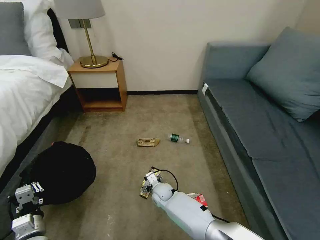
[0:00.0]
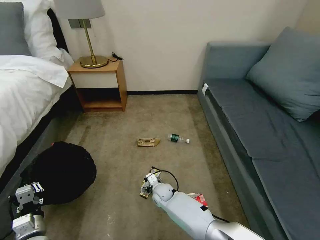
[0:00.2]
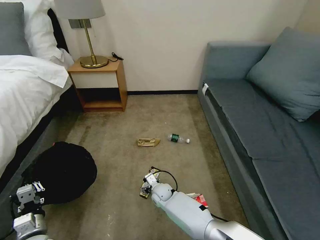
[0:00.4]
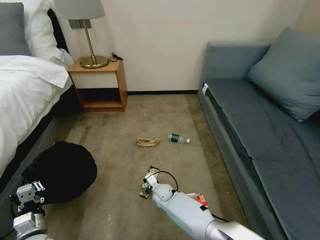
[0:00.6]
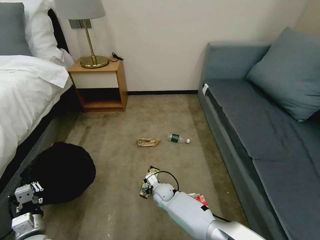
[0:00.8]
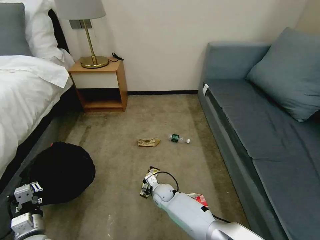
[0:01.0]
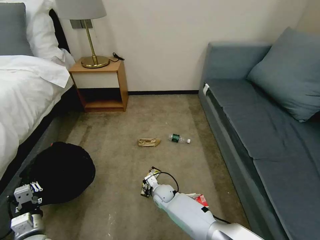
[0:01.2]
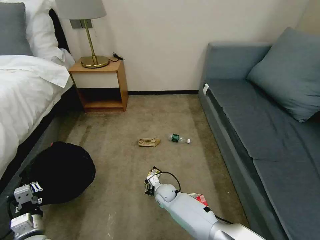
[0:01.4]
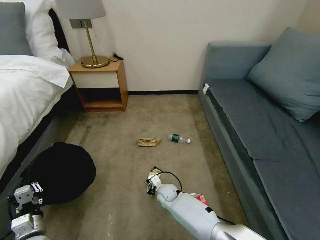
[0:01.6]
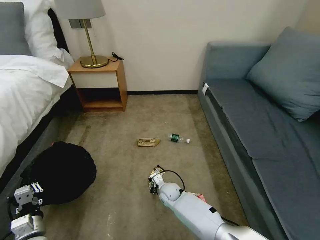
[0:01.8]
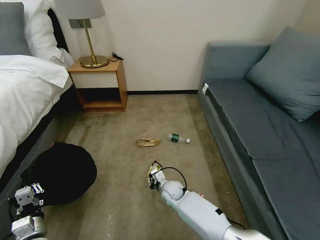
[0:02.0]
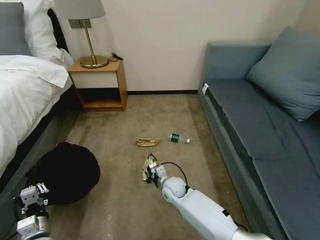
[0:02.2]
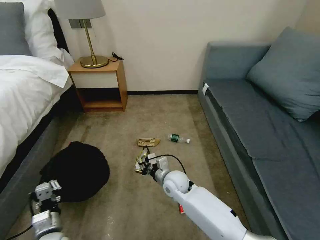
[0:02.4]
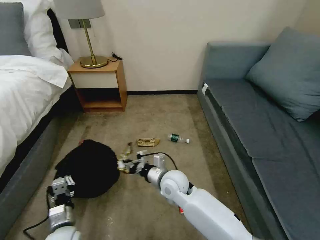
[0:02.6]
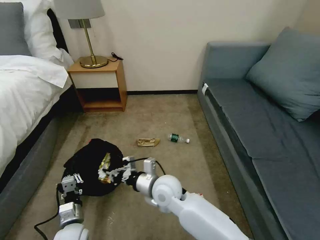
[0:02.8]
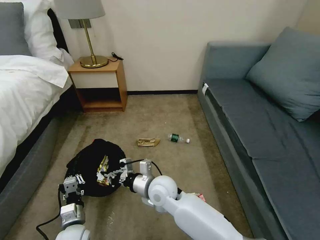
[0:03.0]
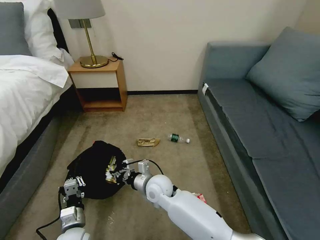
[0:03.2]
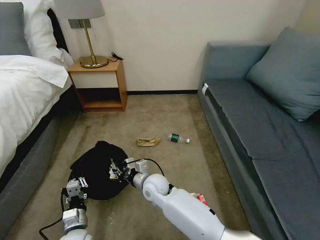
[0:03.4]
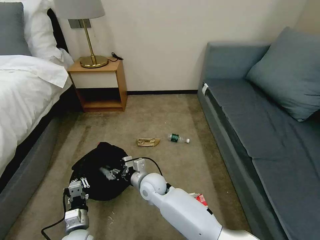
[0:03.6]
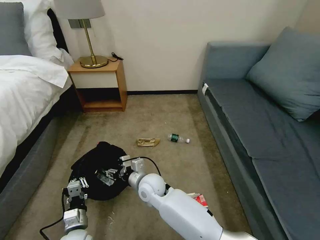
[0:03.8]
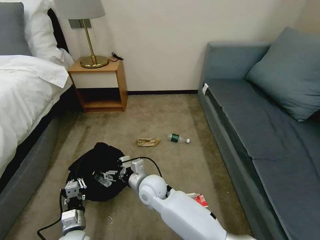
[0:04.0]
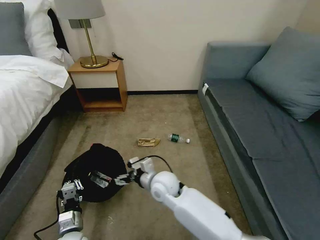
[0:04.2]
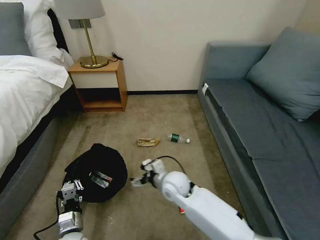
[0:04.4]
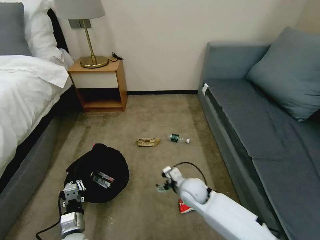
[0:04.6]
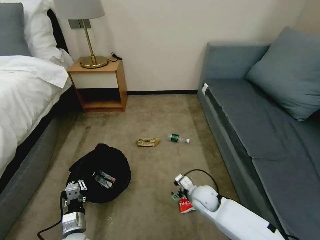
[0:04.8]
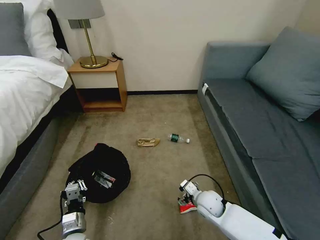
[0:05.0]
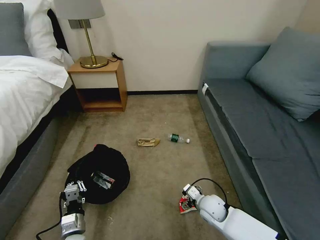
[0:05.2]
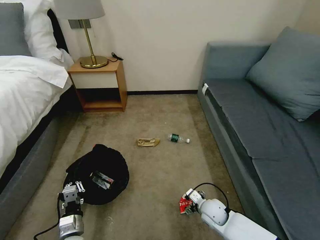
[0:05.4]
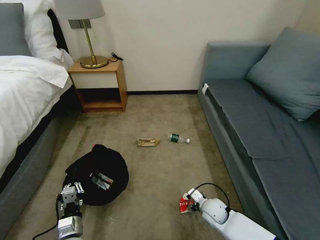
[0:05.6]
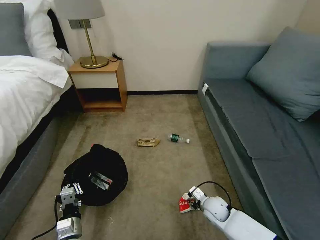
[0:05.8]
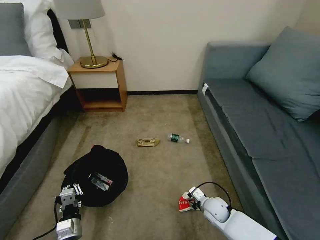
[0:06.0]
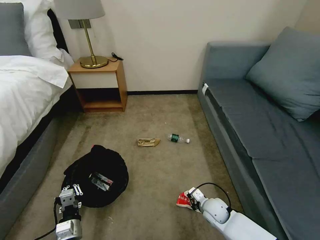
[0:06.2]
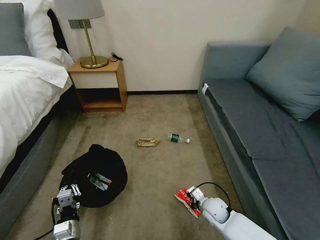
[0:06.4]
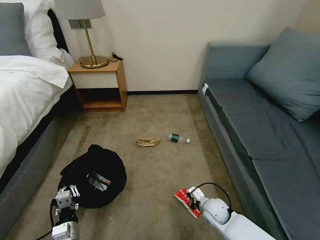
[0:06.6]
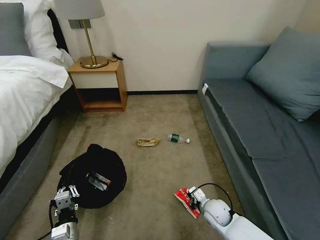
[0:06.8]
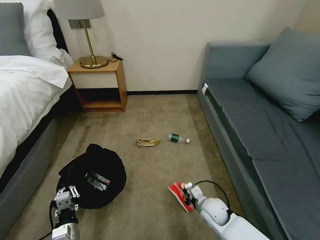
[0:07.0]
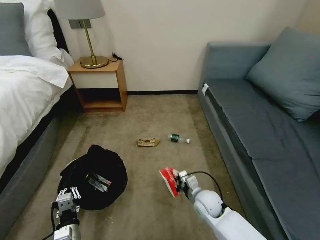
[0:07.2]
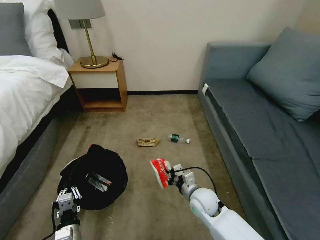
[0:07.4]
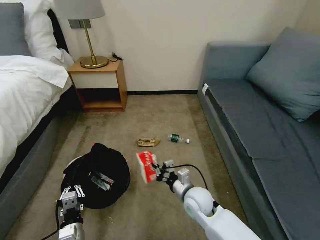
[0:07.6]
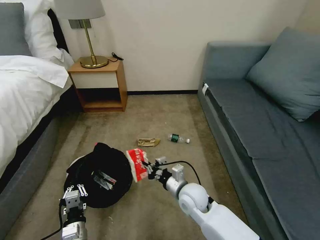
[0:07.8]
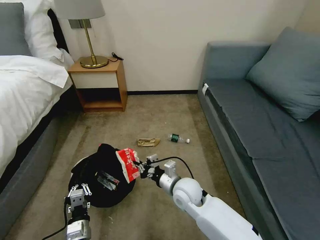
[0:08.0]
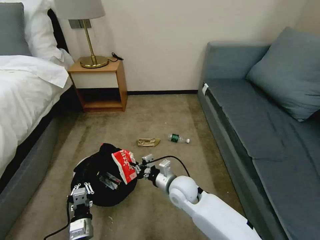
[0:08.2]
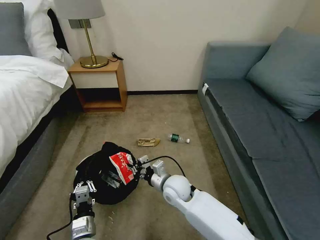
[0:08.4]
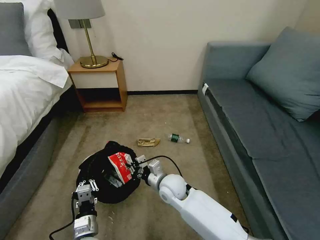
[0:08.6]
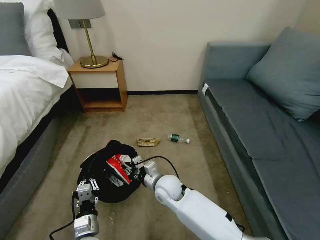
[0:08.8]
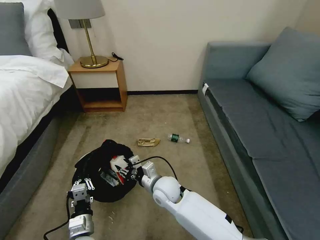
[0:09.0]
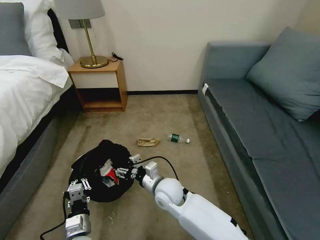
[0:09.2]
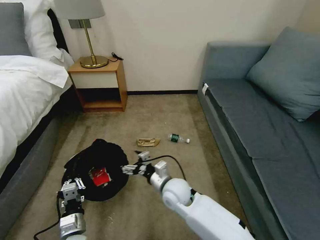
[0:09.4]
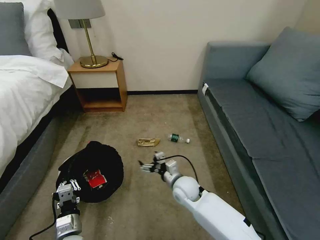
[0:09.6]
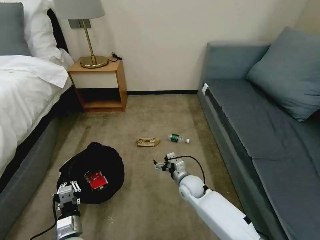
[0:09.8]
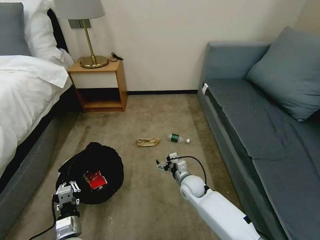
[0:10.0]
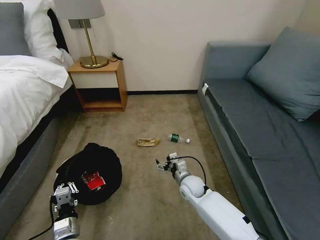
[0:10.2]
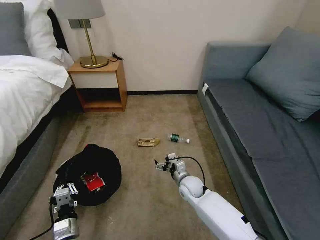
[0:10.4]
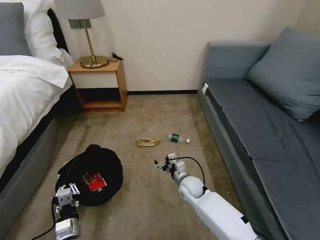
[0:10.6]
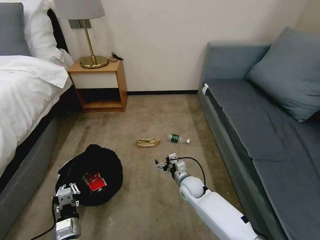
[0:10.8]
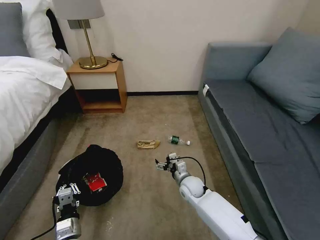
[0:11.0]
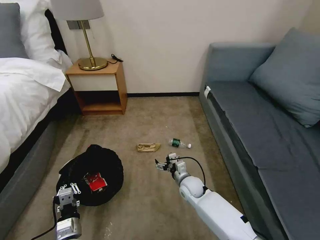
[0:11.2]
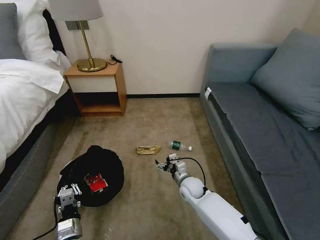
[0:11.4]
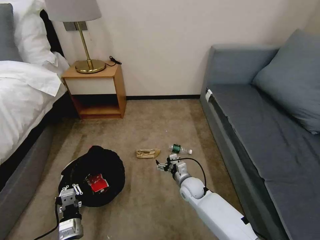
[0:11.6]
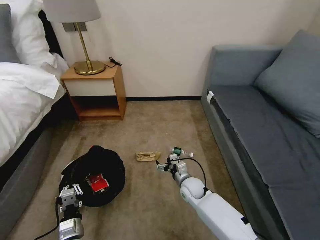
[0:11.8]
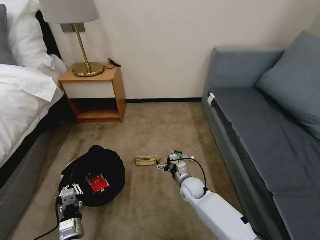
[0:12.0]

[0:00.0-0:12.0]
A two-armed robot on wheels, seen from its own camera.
Task of the whole recording: Pick up the trash bin, then pick up the garbage on the floor and place it into the trash bin.
0:00.0 to 0:01.6: The right gripper closes its fingers.
0:01.6 to 0:03.0: The left gripper moves to the right, approximately 10 cm, while the right gripper travels upward by some 20 cm.
0:03.0 to 0:04.4: The right gripper changes place by approximately 5 cm, and opens.
0:04.4 to 0:06.0: The right gripper travels to the right and downward by roughly 25 cm, and closes its fingers.
0:06.0 to 0:07.6: The right gripper heads upward and to the left, covering about 15 cm, and closes up.
0:07.6 to 0:09.0: The right gripper heads to the left, covering approximately 10 cm, and opens its fingers.
0:09.0 to 0:10.4: The right gripper travels to the right and downward by approximately 15 cm, and opens.

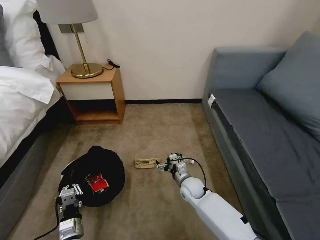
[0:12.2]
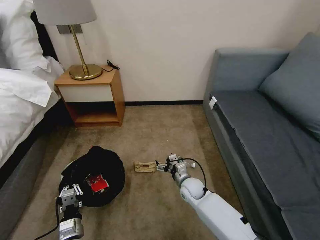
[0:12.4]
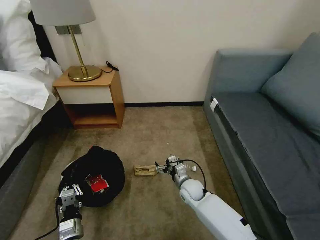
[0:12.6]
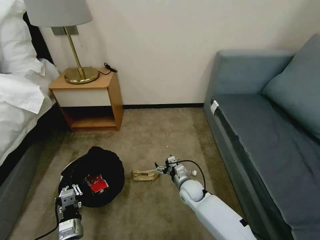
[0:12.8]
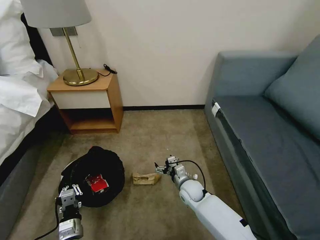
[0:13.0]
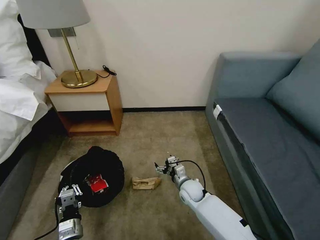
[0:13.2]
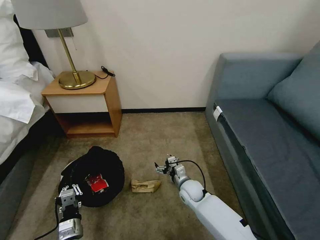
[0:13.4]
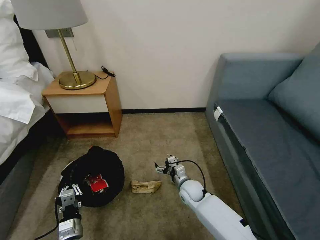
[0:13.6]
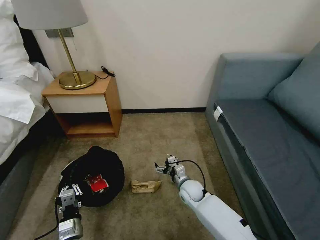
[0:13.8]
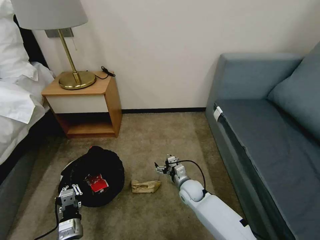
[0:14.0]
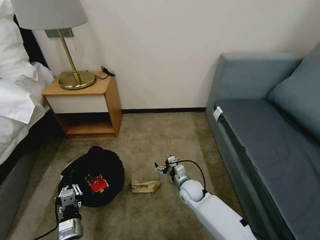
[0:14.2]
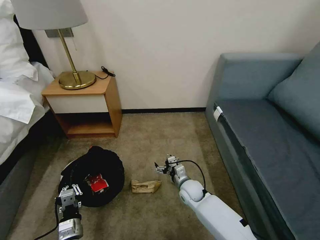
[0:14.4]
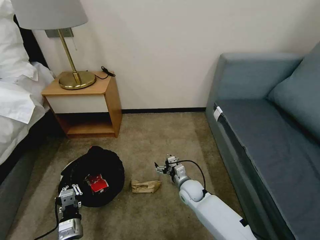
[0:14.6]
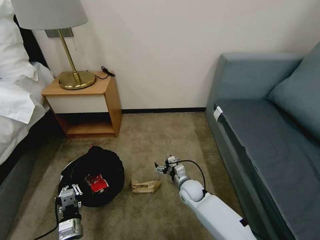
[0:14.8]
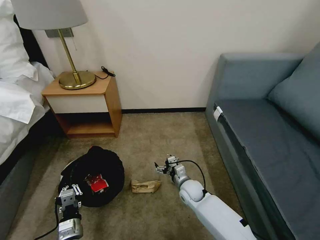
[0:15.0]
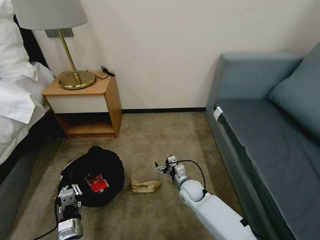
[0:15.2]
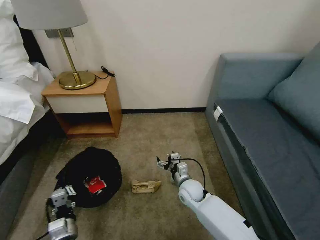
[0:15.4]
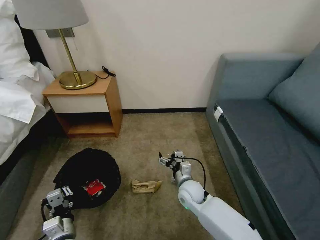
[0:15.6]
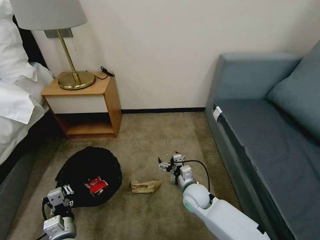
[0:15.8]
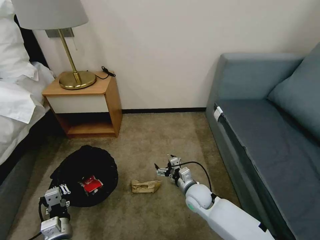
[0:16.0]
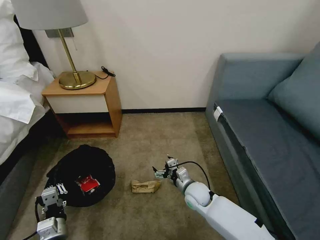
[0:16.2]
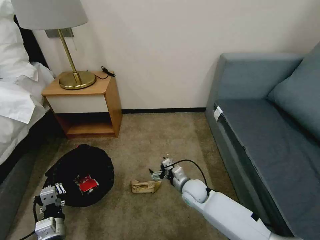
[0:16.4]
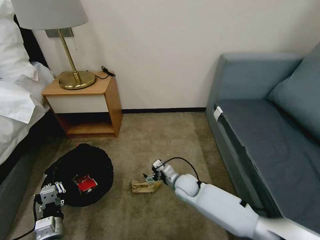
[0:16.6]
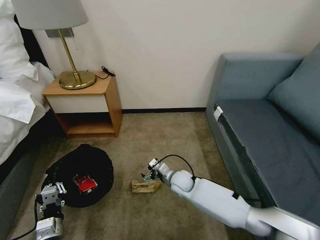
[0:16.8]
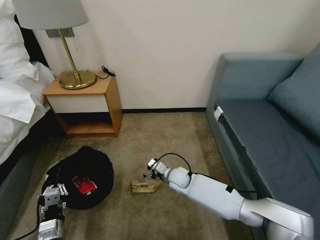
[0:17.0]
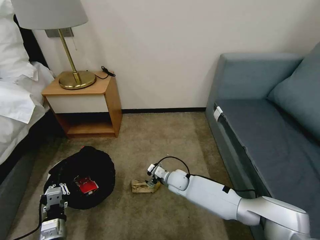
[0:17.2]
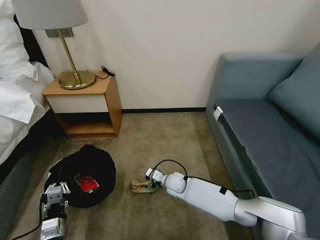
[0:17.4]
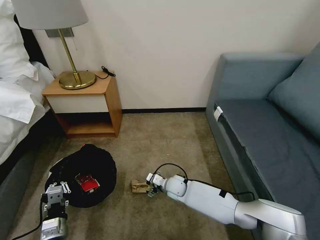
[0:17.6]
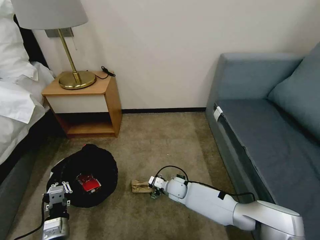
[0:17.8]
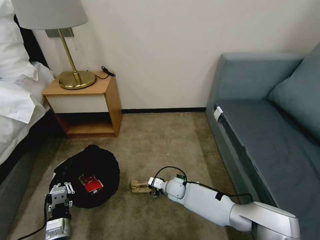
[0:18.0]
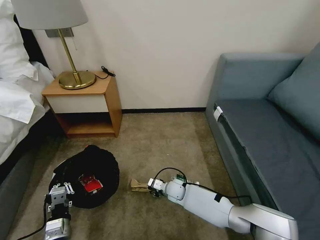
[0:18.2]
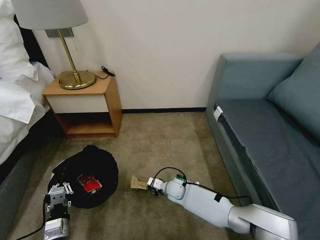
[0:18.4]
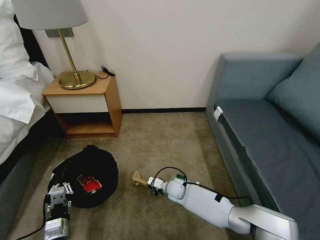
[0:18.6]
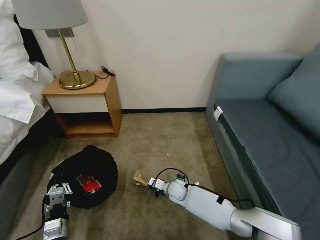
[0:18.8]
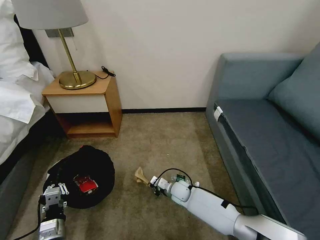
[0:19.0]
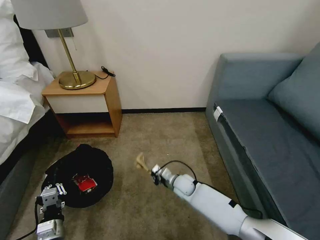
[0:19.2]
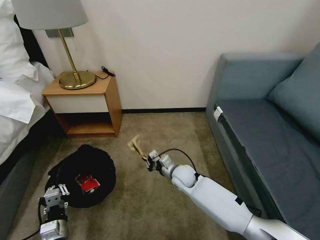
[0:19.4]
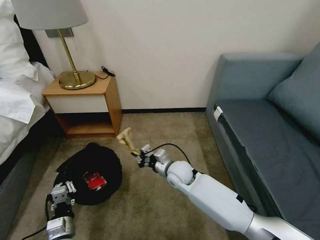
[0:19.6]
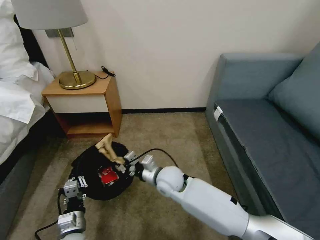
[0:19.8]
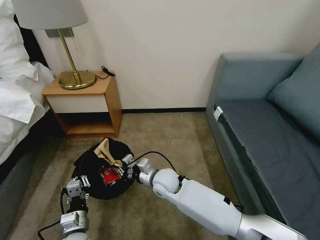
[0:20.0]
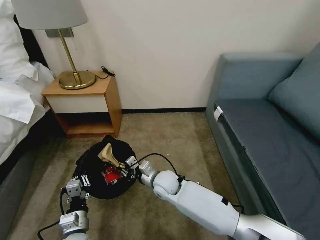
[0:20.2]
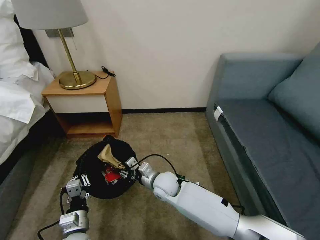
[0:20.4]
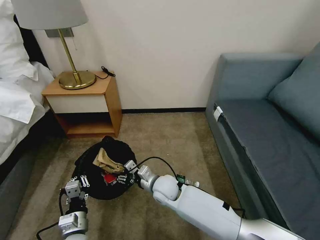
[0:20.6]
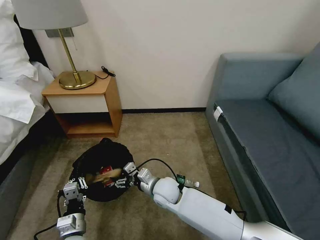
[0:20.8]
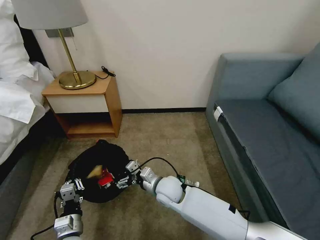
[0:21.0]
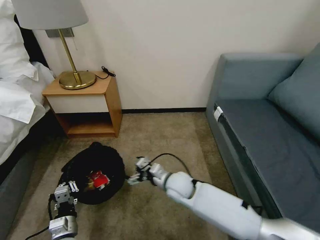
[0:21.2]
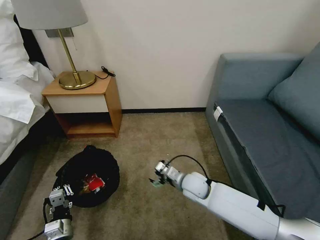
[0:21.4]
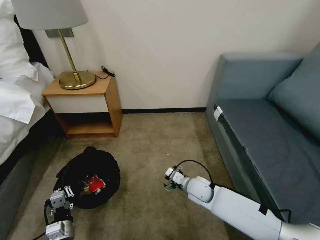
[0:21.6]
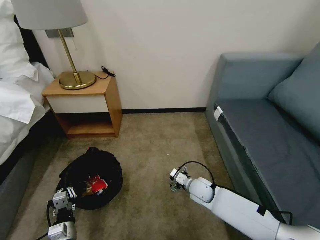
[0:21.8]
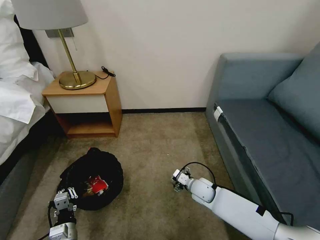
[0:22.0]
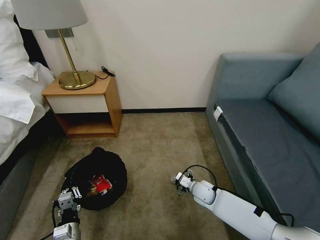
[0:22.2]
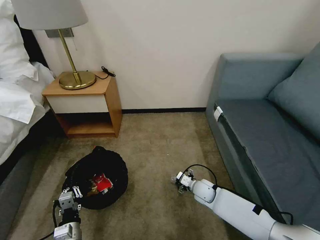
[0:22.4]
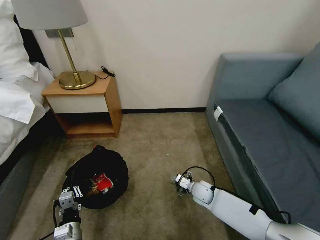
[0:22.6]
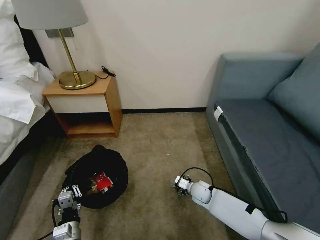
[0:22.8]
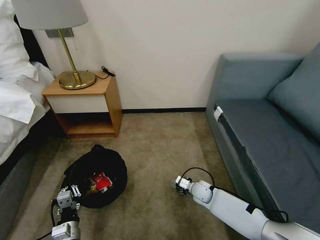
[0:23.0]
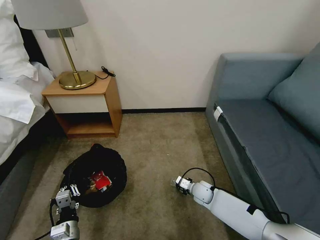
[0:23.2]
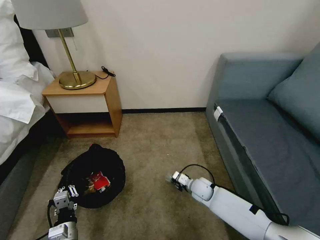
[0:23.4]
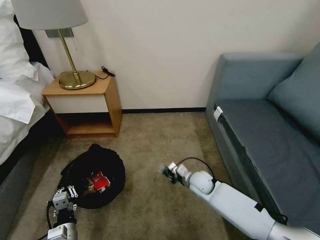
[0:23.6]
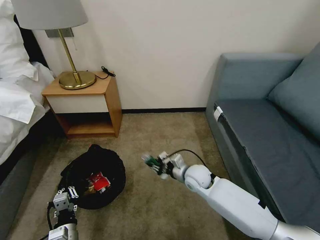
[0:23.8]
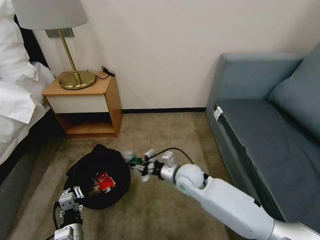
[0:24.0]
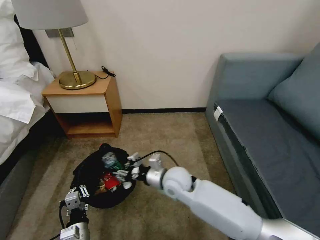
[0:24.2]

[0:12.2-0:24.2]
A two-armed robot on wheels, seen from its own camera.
Task of the whole recording: Pick up the trash bin, then pick up the garbage on the floor and place it into the trash bin.
0:13.8 to 0:15.2: Both grippers stay about where they are.
0:15.2 to 0:16.6: The left gripper goes about 5 cm upward.
0:16.6 to 0:18.2: The right gripper is displaced downward by roughly 10 cm, and closes up.
0:18.2 to 0:19.8: The right gripper shifts approximately 20 cm upward, and closes up.
0:19.8 to 0:21.2: The right gripper opens its fingers.
0:21.2 to 0:22.6: The right gripper travels downward and to the right by about 20 cm.
0:22.6 to 0:24.2: The right gripper shifts some 20 cm upward and to the left, and closes its fingers.
